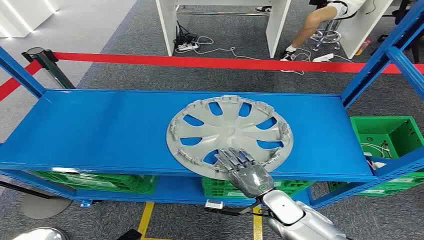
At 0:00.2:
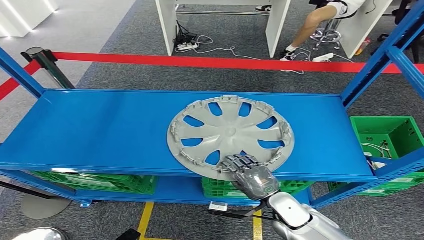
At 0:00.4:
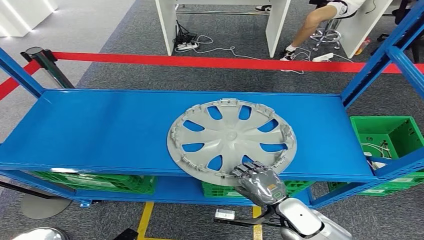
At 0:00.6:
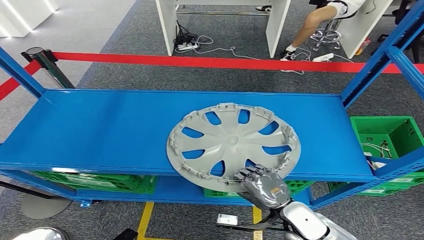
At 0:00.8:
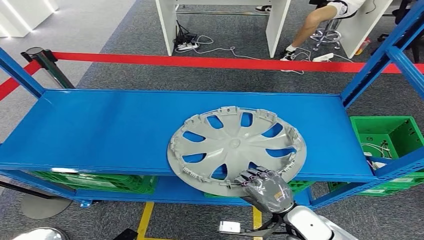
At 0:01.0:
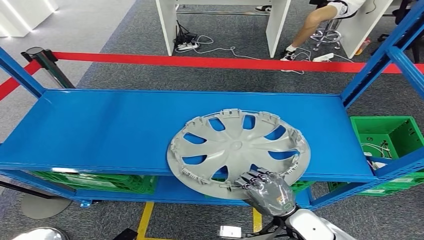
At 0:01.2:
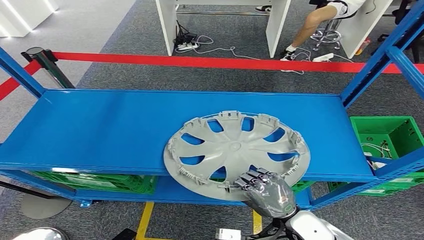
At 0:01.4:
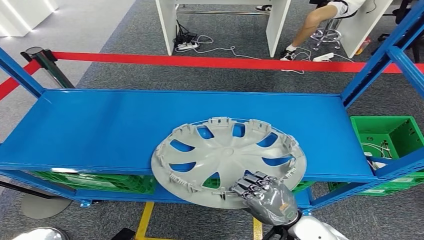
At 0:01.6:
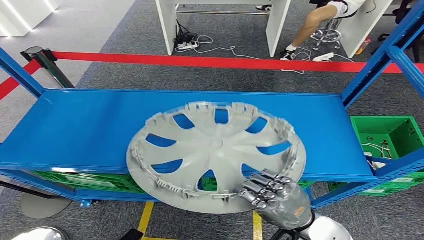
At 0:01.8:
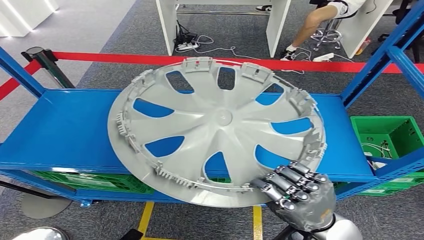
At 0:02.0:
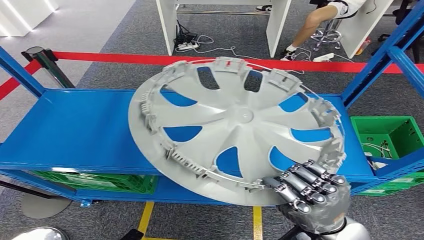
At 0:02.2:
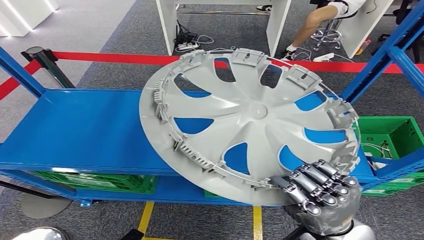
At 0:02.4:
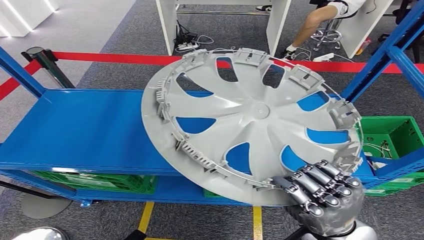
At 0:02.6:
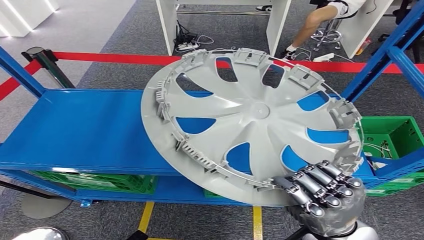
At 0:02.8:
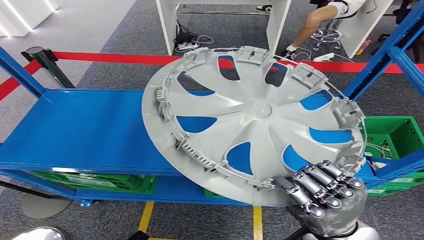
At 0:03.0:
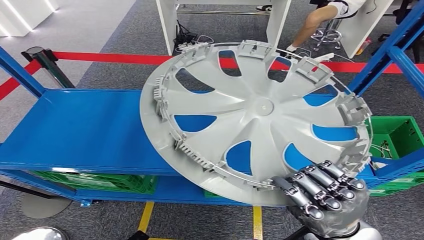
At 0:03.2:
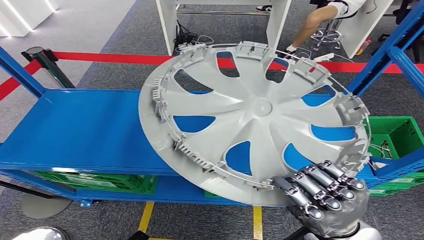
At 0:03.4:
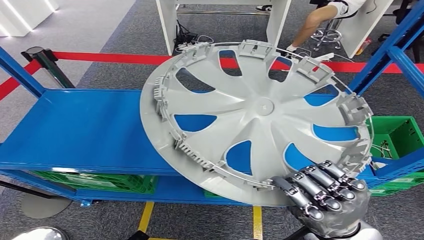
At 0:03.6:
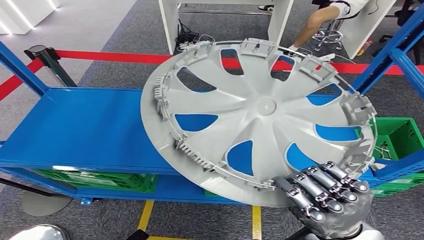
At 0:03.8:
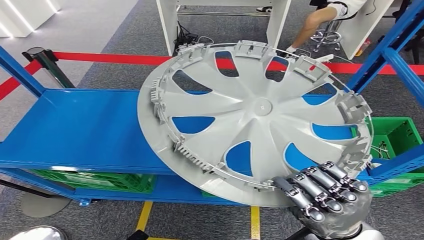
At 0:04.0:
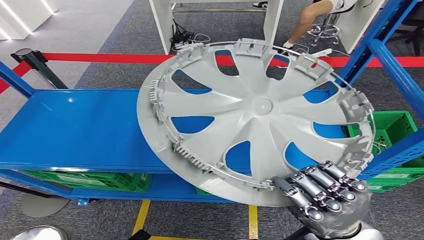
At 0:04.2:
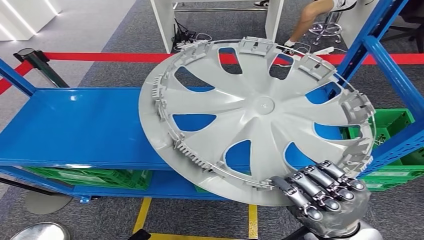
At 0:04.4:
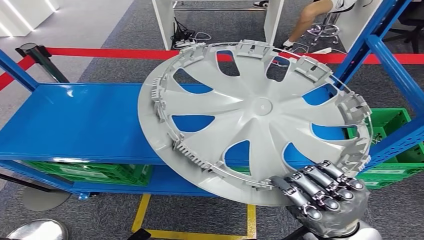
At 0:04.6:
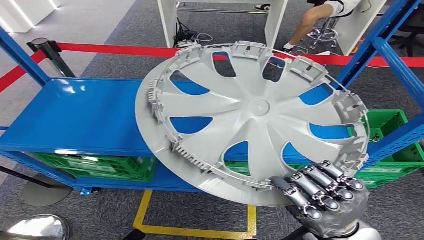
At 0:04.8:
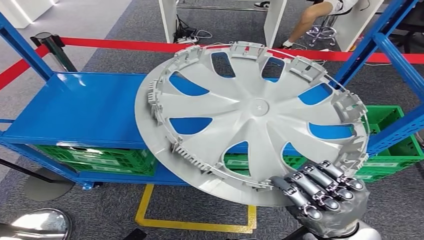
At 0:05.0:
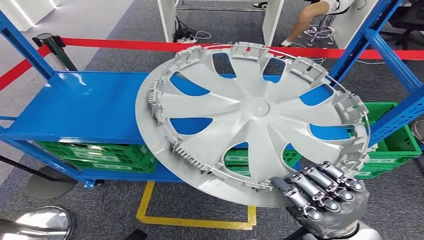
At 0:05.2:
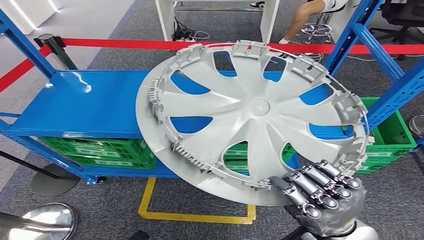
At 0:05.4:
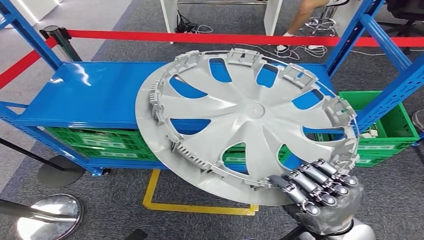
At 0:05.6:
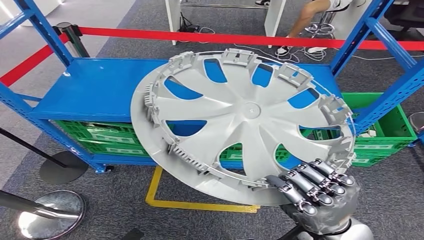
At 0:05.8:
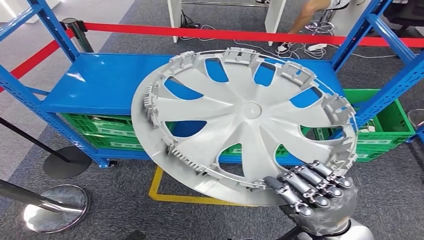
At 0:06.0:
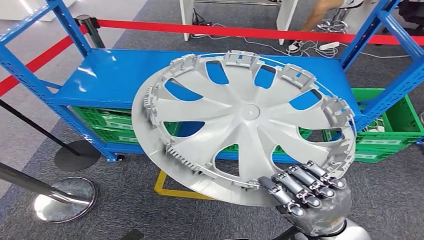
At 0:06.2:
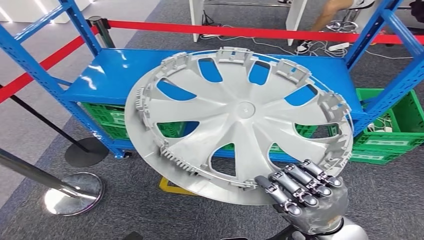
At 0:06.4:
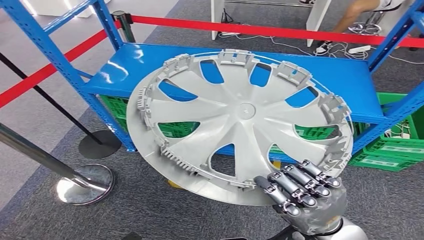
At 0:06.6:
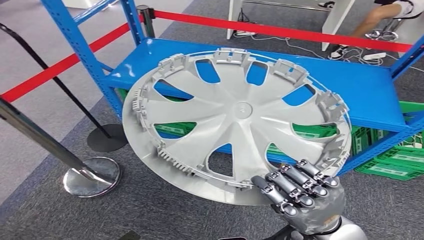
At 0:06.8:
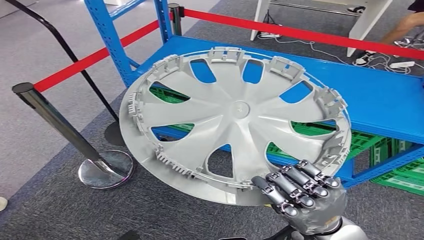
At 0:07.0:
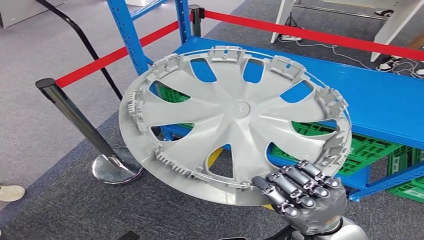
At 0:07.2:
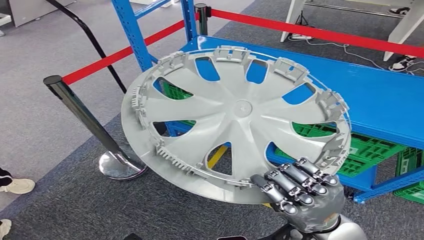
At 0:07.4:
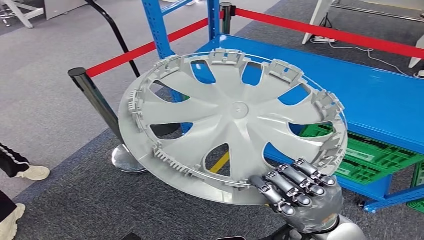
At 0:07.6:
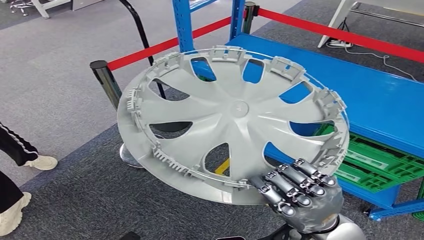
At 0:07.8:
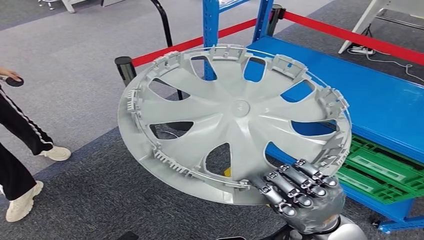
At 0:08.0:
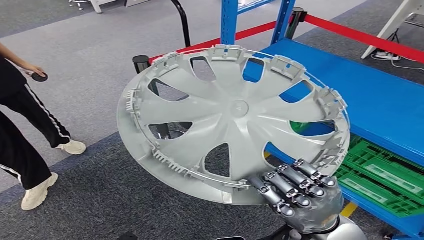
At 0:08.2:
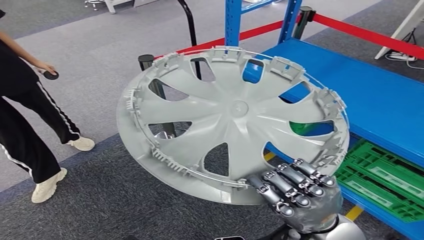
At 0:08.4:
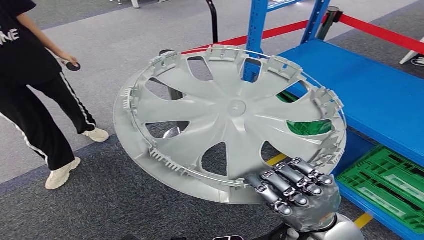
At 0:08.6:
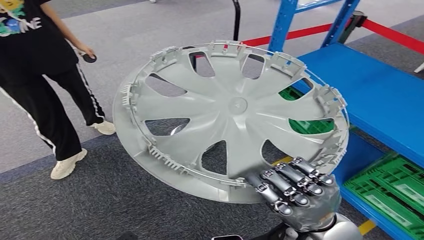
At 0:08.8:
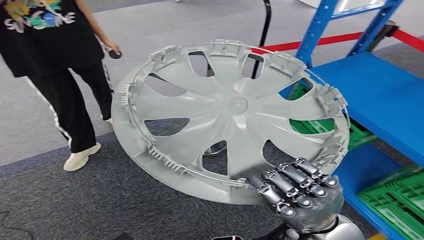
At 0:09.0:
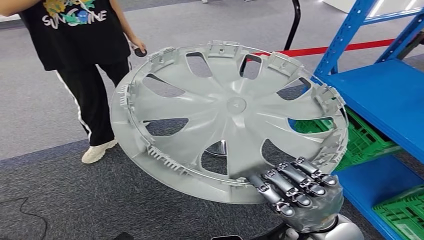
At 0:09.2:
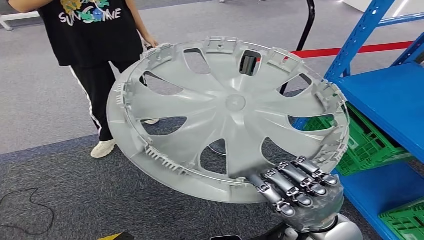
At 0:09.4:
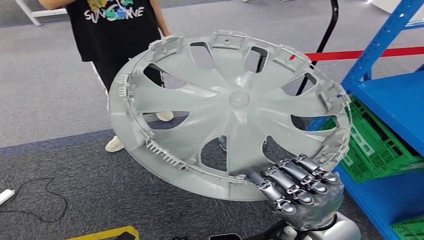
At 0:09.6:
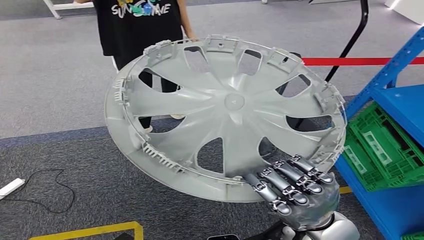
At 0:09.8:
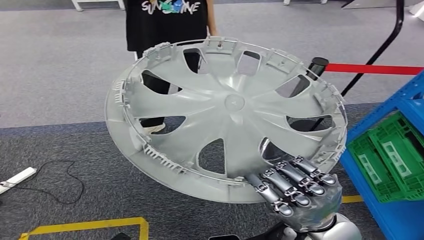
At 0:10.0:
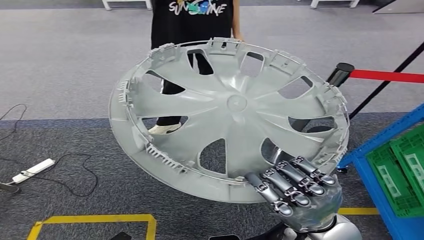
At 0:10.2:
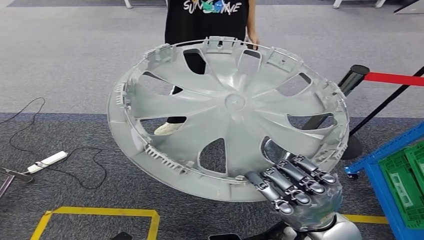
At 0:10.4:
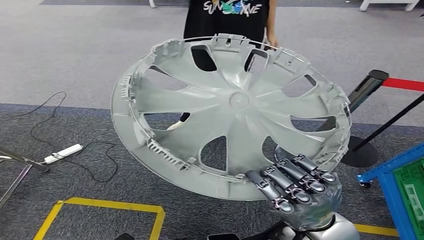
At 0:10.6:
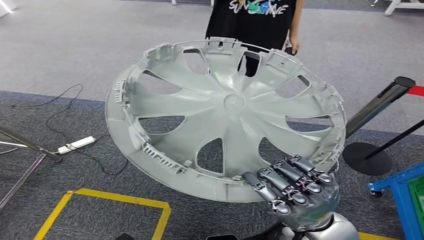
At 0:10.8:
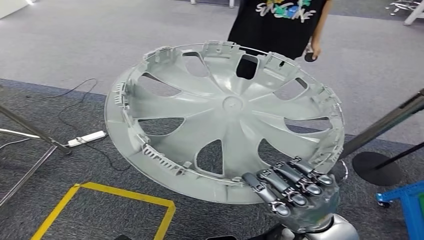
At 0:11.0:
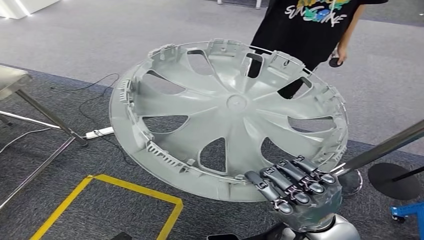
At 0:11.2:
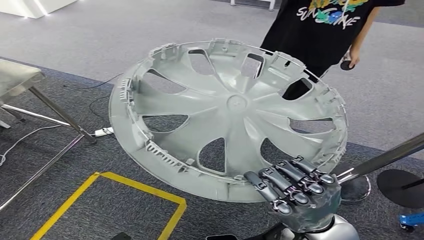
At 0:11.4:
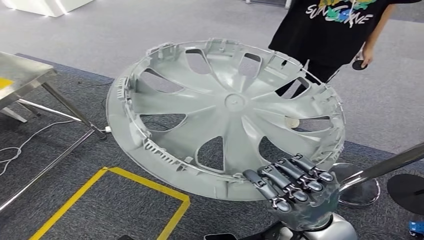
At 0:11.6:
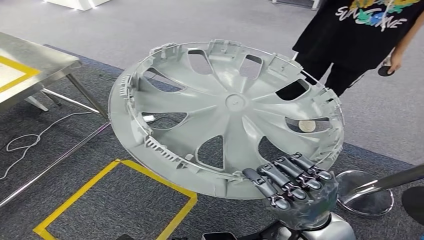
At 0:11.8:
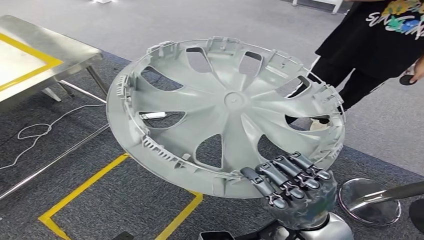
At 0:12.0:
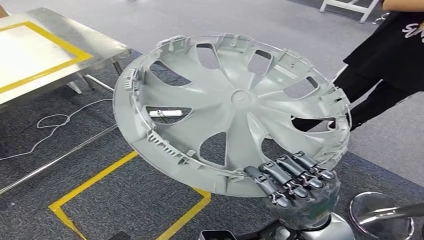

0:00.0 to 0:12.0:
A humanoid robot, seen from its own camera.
Step, 0:00.0 to 0:07.0: Pick up the small component from the shelf.

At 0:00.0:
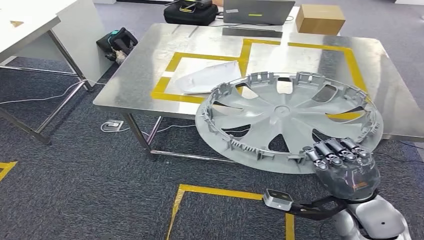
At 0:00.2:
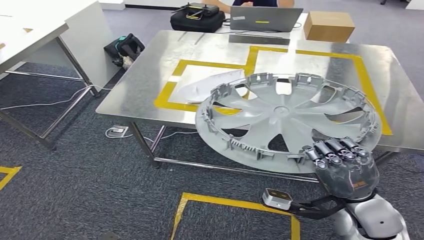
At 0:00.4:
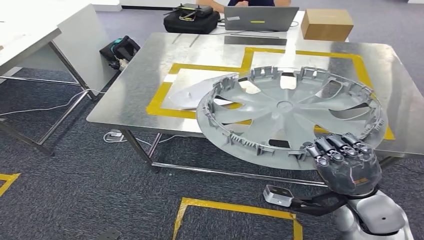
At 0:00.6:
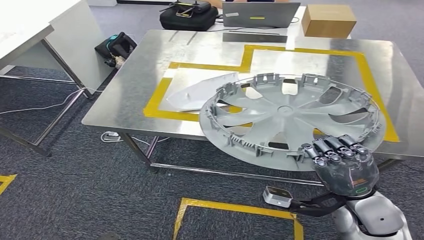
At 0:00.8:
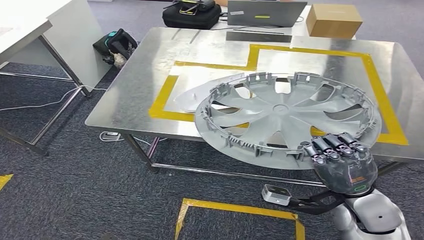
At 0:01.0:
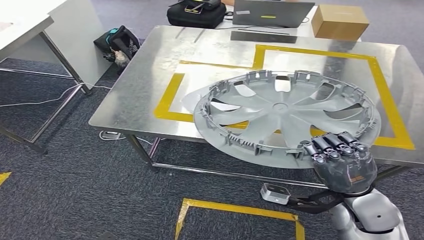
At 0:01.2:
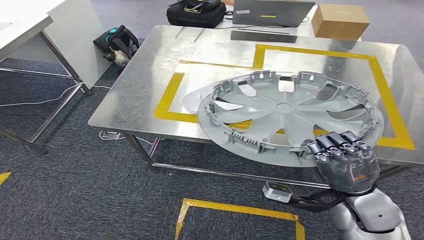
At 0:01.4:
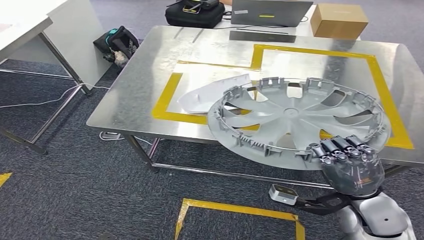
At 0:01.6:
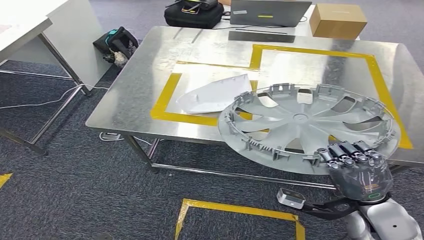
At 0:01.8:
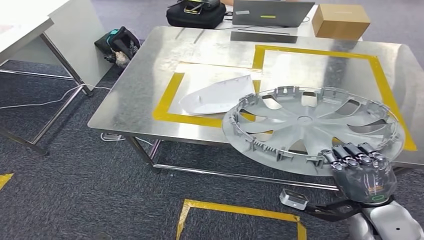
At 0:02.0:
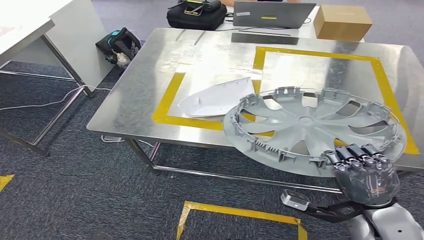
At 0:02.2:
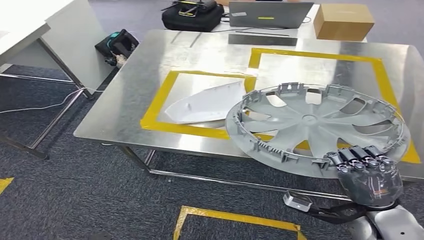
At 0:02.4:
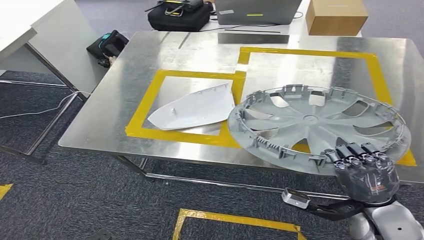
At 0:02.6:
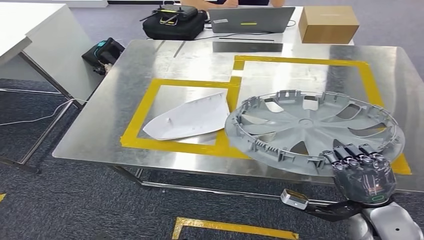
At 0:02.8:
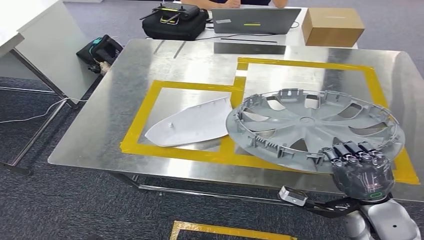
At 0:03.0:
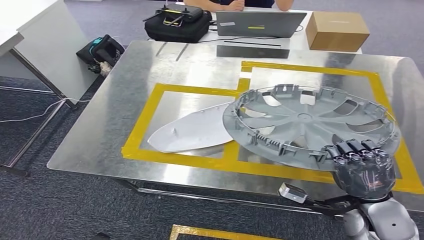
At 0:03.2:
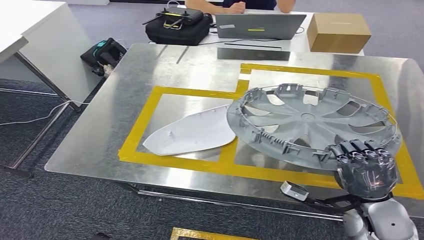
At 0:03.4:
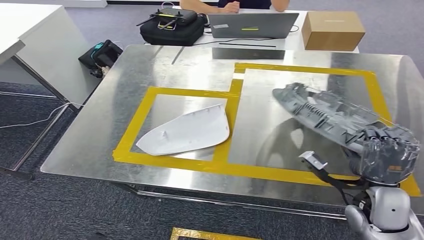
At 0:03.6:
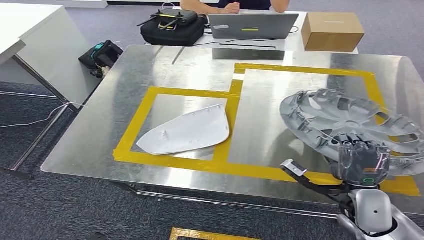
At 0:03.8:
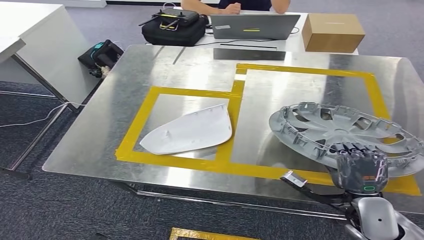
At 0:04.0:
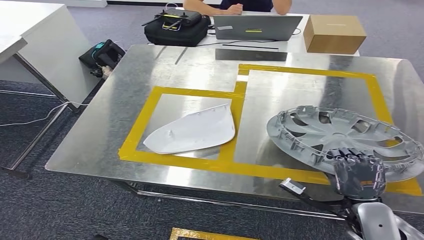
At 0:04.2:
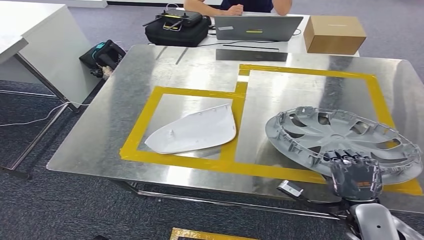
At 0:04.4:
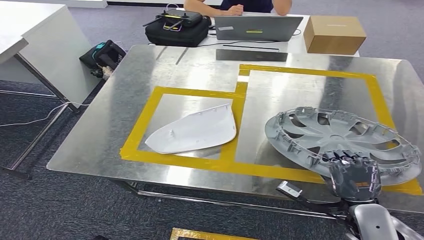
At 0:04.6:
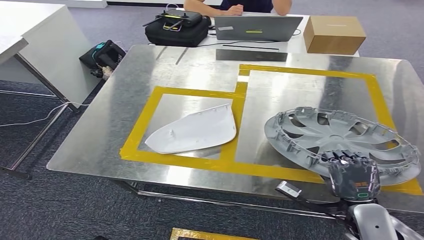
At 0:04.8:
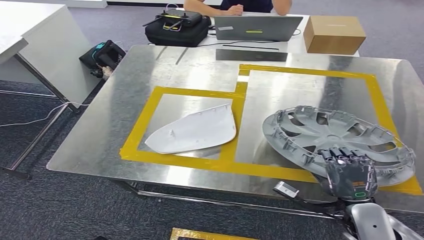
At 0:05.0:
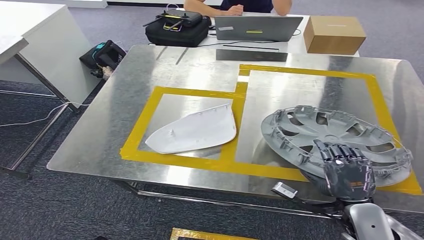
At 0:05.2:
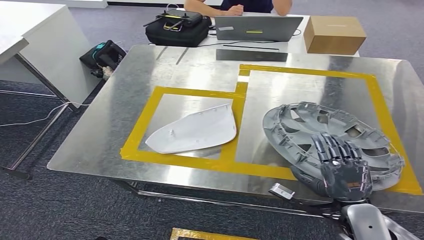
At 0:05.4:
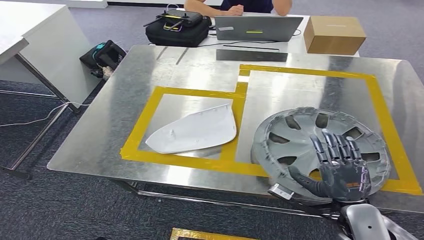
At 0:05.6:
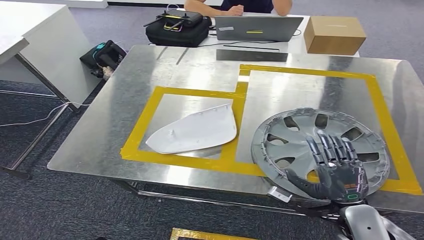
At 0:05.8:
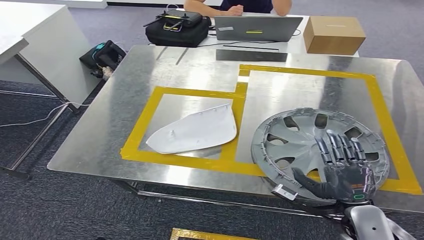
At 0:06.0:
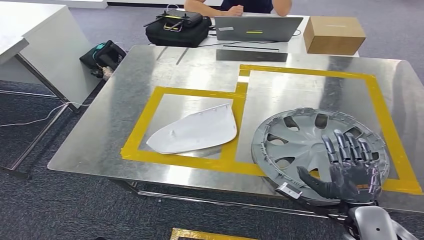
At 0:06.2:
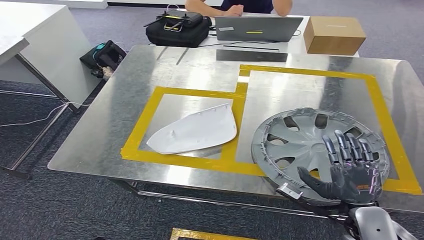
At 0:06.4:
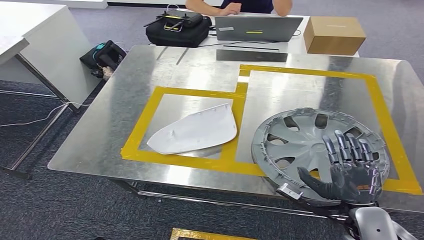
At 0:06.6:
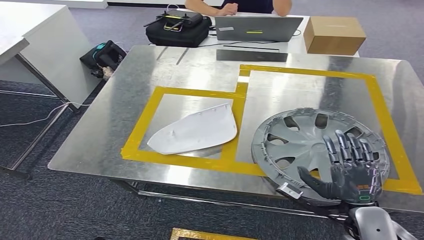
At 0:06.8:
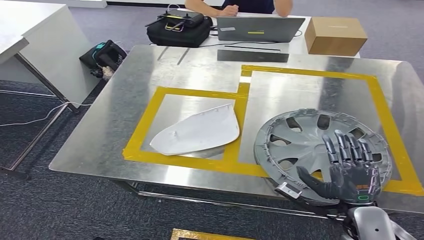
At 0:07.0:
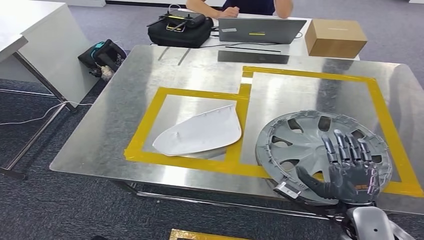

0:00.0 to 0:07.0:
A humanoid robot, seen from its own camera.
Step, 0:00.0 to 0:02.2: Move the small component to the workbench.
0:04.2 to 0:07.0: The hands move only a little.
